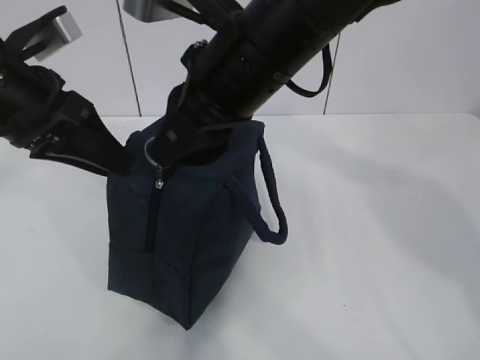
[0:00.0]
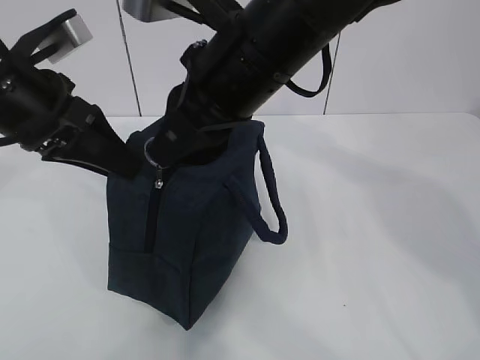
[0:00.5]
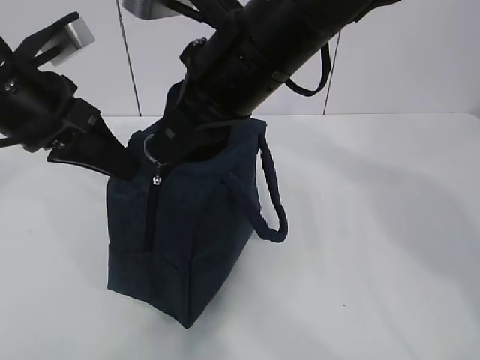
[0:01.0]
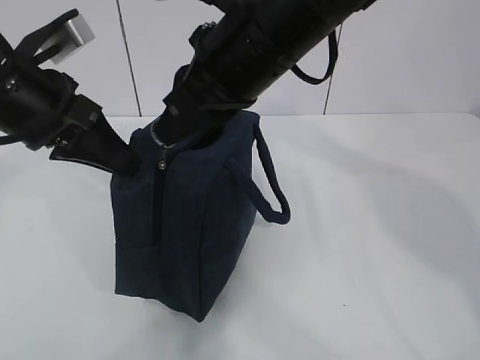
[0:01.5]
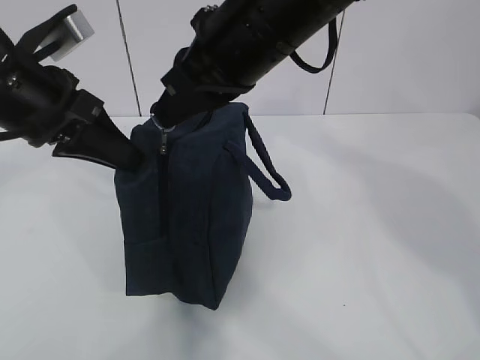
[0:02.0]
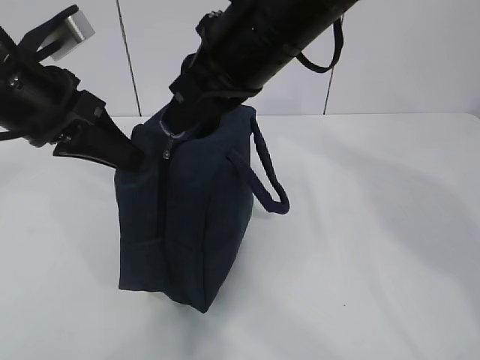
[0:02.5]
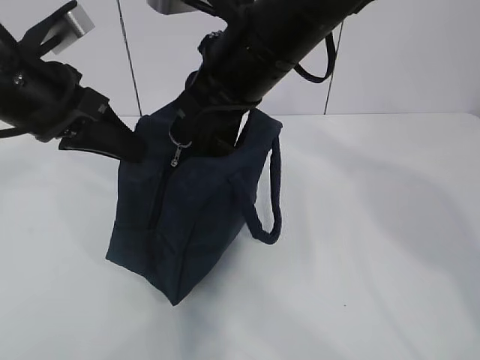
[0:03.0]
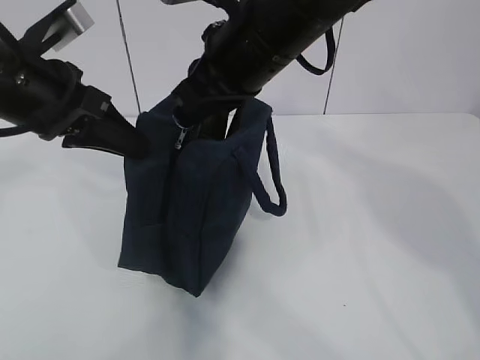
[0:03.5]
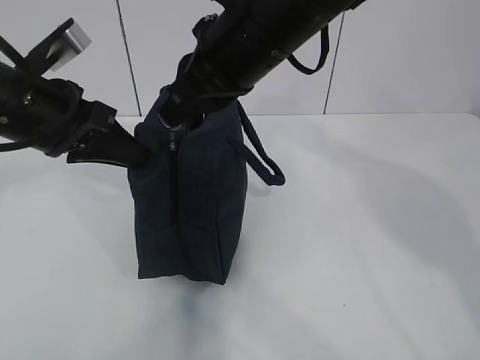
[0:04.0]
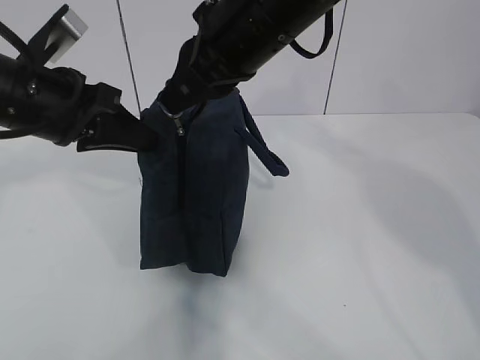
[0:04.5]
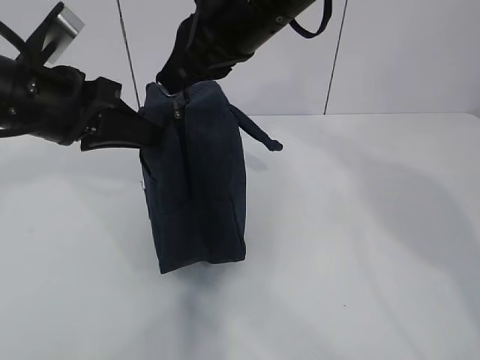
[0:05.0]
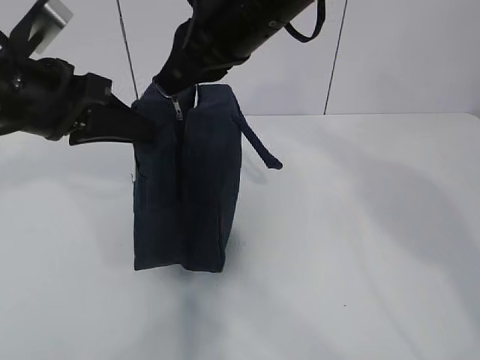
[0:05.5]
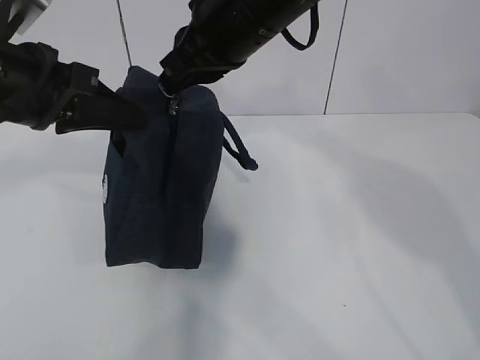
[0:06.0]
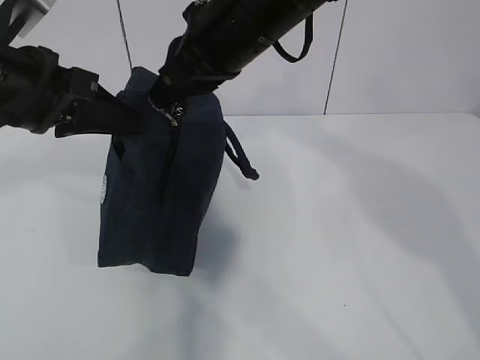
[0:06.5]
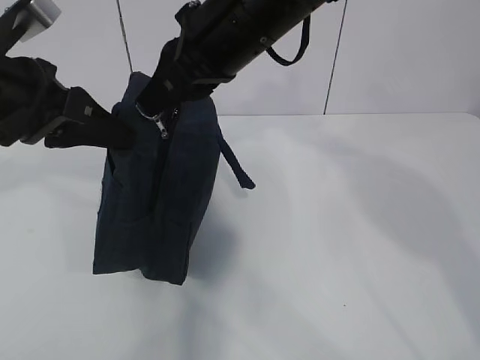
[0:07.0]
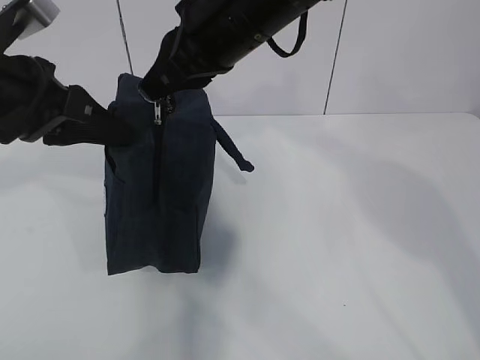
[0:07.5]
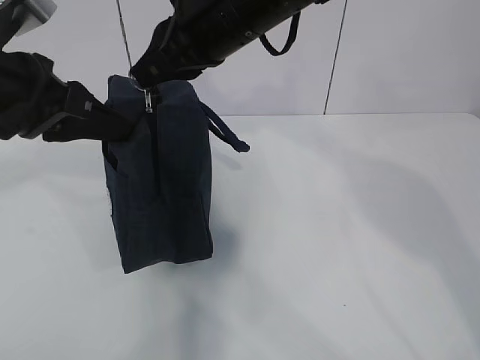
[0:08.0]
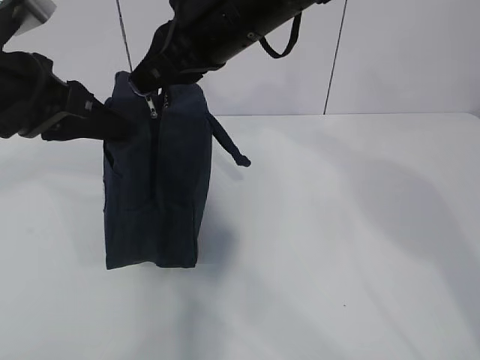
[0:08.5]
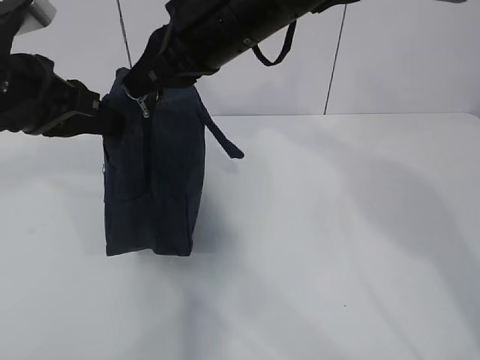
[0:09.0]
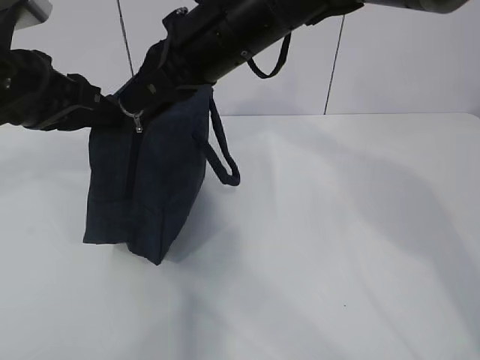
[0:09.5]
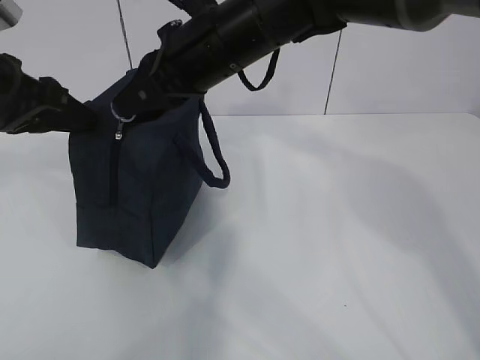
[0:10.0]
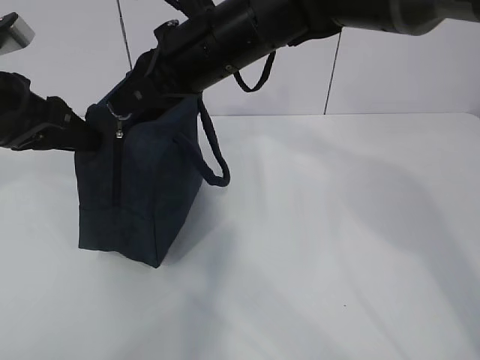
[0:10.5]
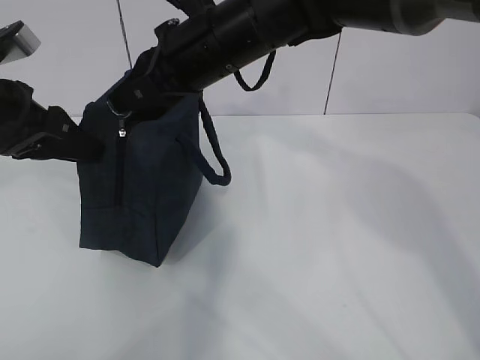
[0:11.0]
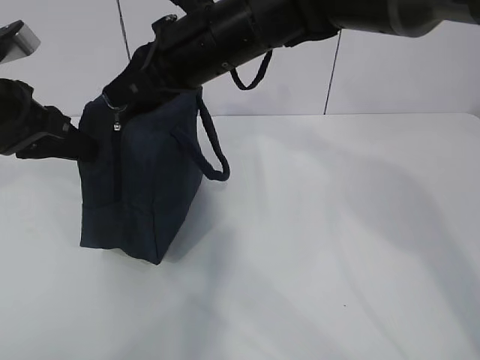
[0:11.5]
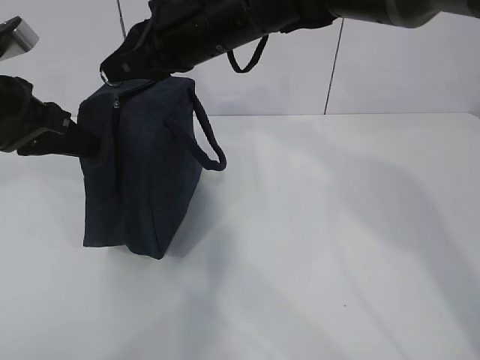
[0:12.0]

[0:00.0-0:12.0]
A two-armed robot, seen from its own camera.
Step, 0:00.0 to 0:02.0: Grab the lunch bag with your left hand.
Step, 0:02.5 to 0:06.5: Pull the zipper with your right hand.
0:00.0 to 0:02.0: The left gripper closes its fingers.
0:02.0 to 0:04.0: The grippers move only a little.
0:04.0 to 0:08.0: There are only small adjustments of the grippers.
0:08.0 to 0:10.0: The left gripper opens its fingers.
0:10.0 to 0:12.0: The left gripper closes.

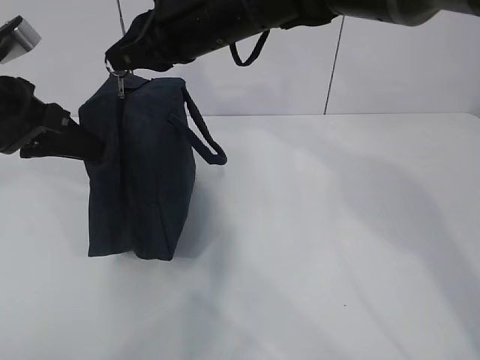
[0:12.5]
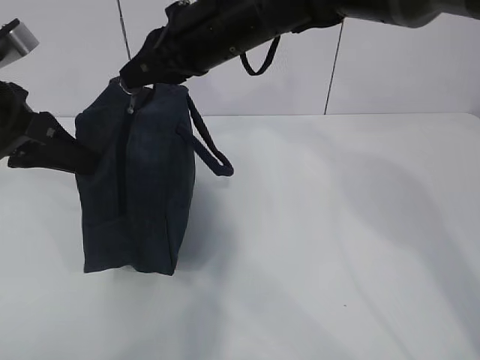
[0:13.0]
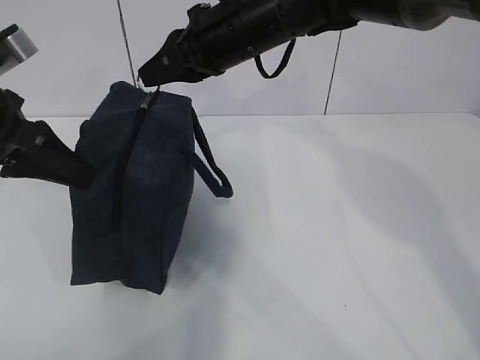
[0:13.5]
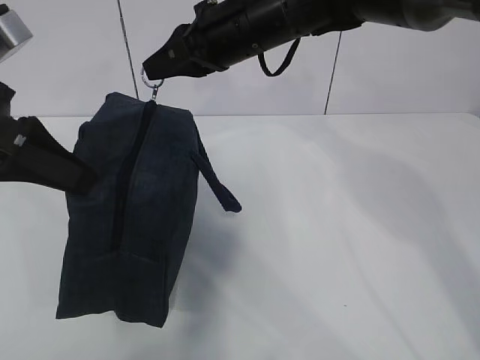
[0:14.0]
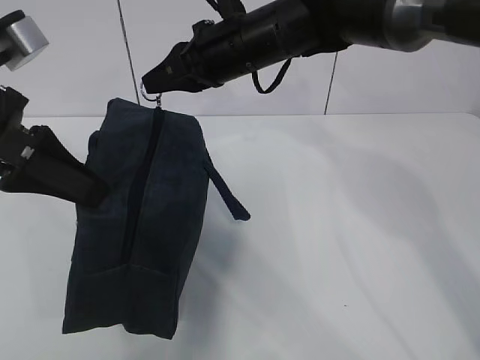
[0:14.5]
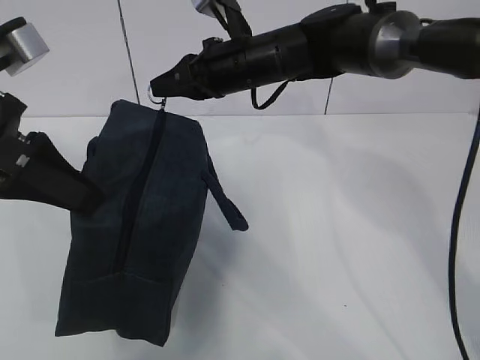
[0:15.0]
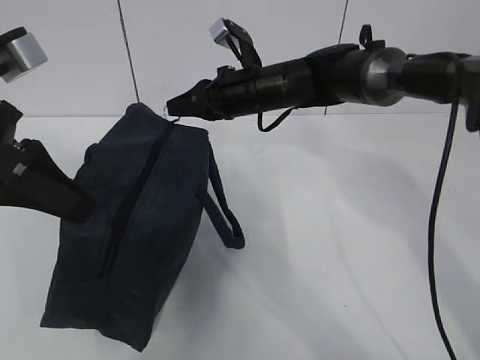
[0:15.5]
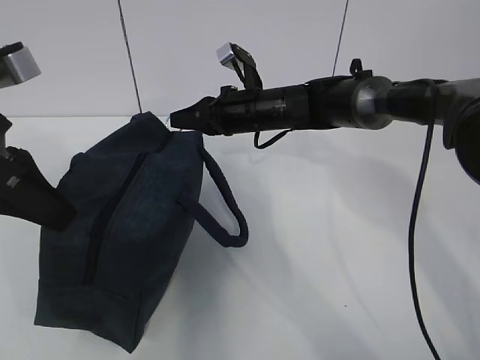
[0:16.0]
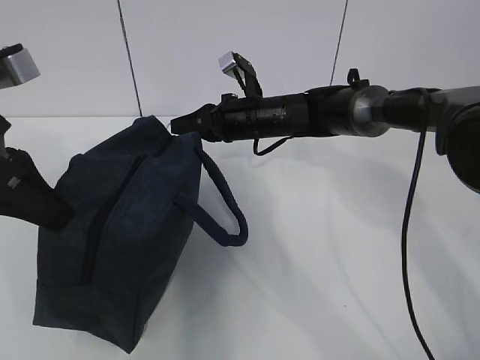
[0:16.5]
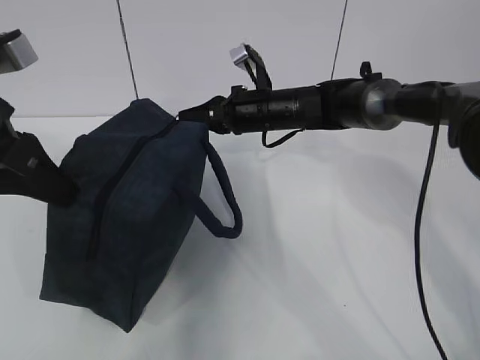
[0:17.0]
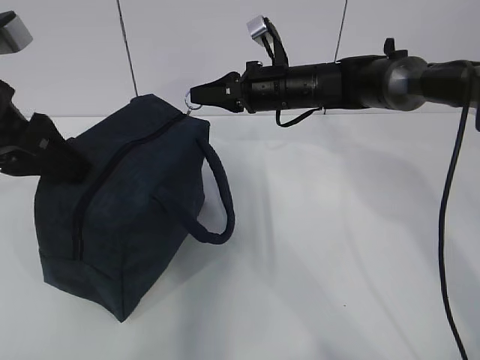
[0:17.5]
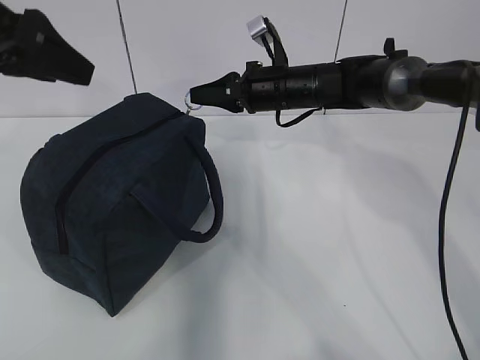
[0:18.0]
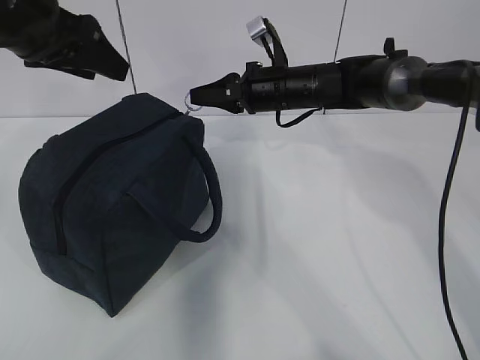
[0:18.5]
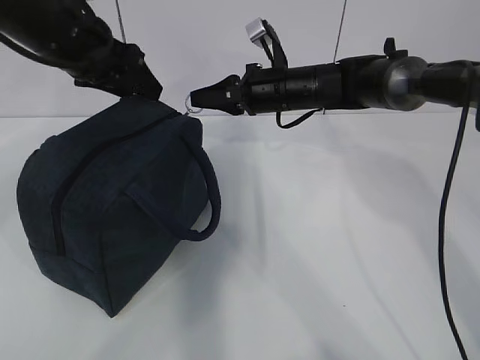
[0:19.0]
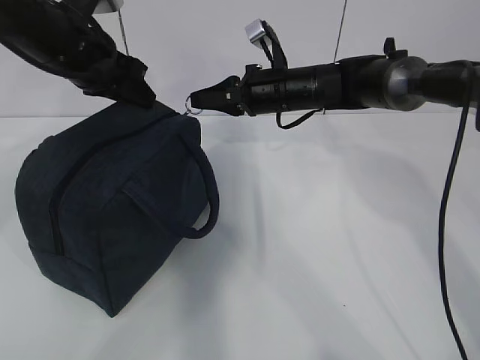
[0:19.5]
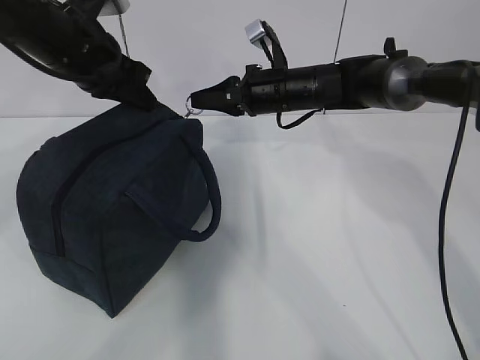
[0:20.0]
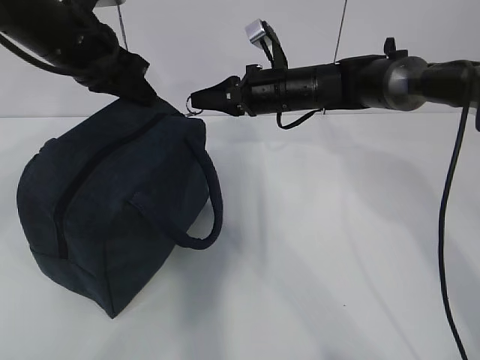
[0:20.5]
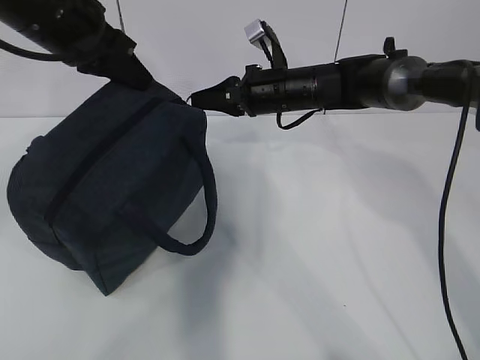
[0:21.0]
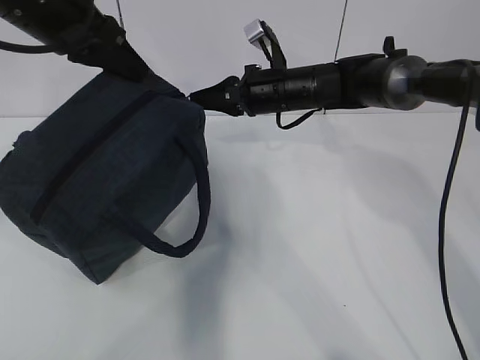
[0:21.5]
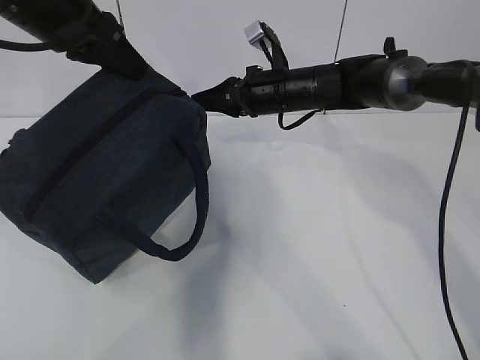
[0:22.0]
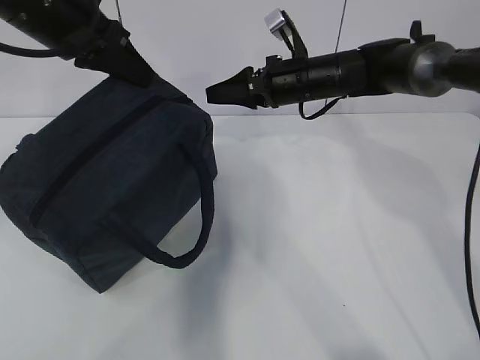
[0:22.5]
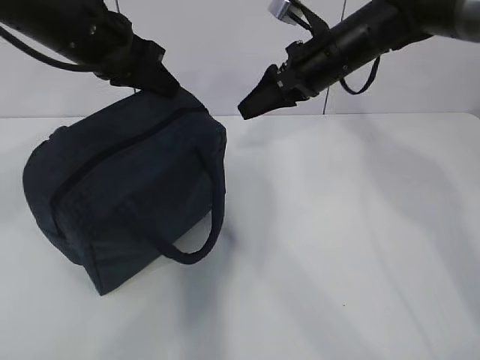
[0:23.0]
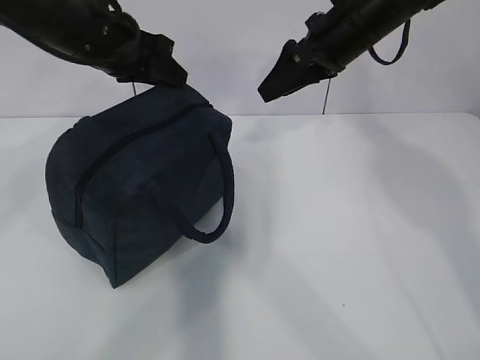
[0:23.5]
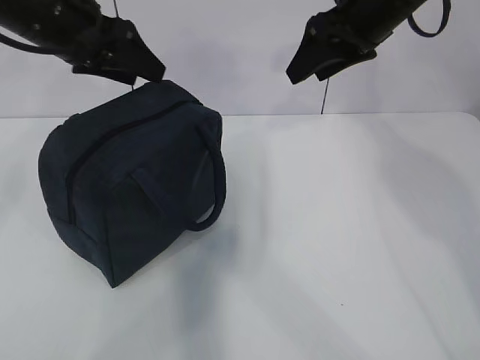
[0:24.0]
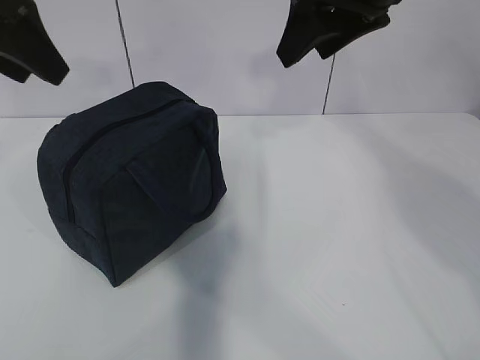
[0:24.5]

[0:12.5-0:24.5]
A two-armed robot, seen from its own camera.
0:12.5 to 0:14.5: The left gripper heads backward, covering roughly 5 cm, while the right gripper ends up roughly 5 cm from where it was.
0:14.5 to 0:16.5: The right gripper shifts some 15 cm downward and forward.
0:16.5 to 0:18.5: The right gripper shifts by roughly 5 cm. Meanwhile the left gripper is displaced forward by about 10 cm, and opens.
0:18.5 to 0:20.5: The left gripper ends up approximately 5 cm from where it was, and closes.
0:20.5 to 0:22.5: The left gripper changes place by approximately 5 cm, while the right gripper opens up.
0:22.5 to 0:24.5: The left gripper travels to the left by about 5 cm, and opens its fingers, while the right gripper travels upward and backward by roughly 25 cm.

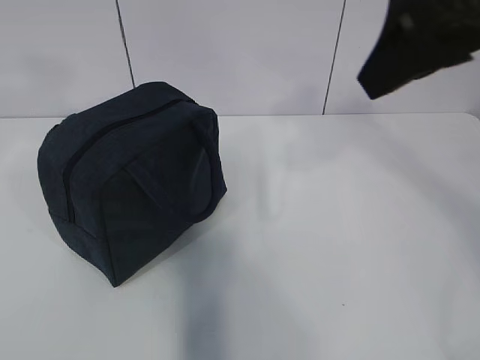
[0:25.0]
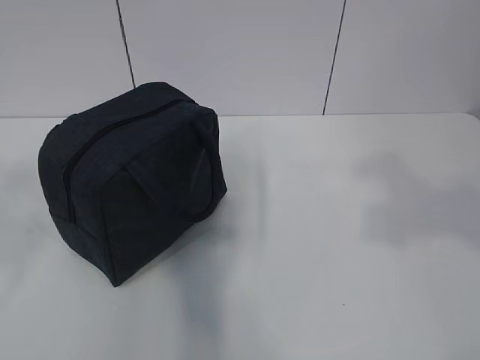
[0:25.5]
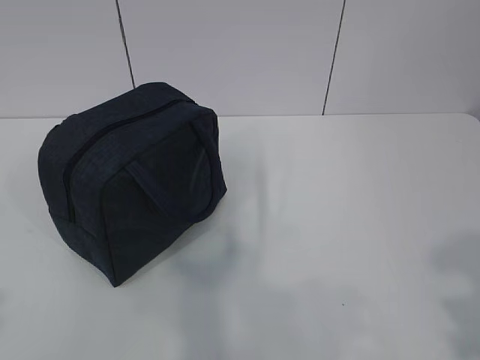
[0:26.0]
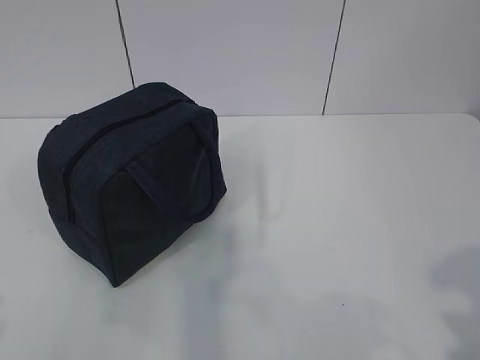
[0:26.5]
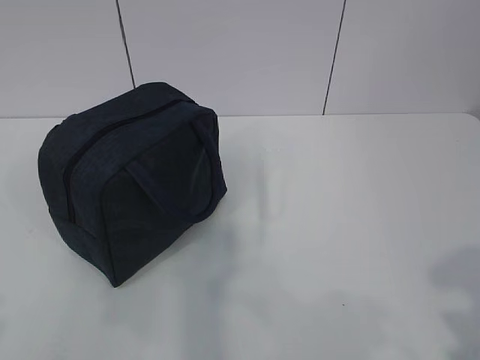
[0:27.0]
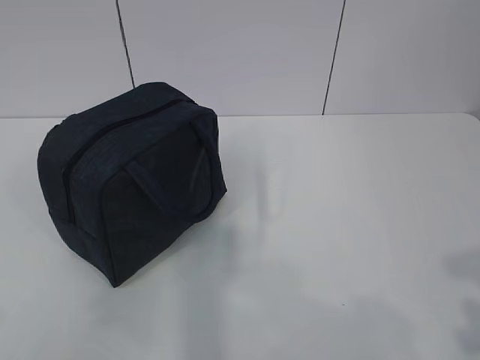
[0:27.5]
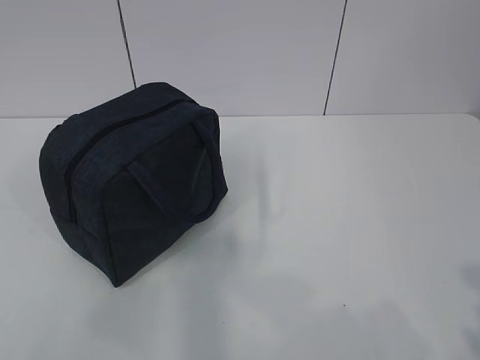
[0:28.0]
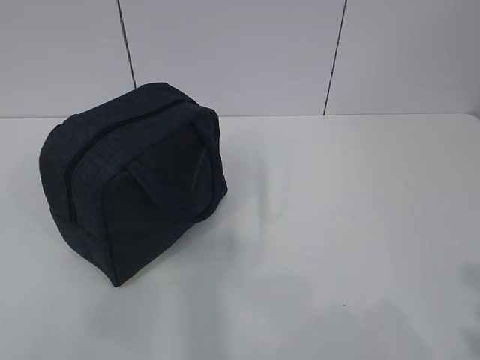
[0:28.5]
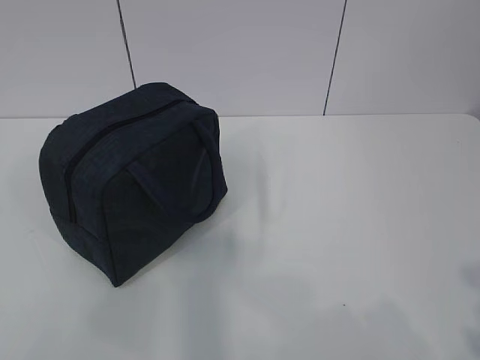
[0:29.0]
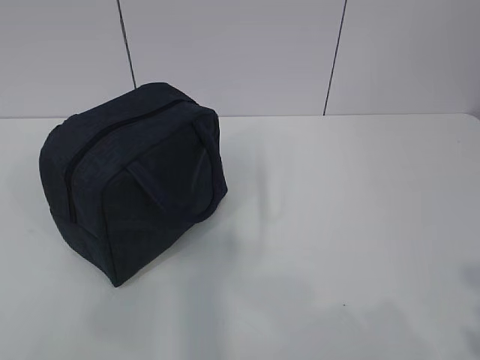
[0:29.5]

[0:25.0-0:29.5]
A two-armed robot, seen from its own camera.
0:25.0 to 0:27.0: The left gripper moves backward and downward, some 25 cm; the right gripper goes approximately 30 cm backward, downward and to the right.
